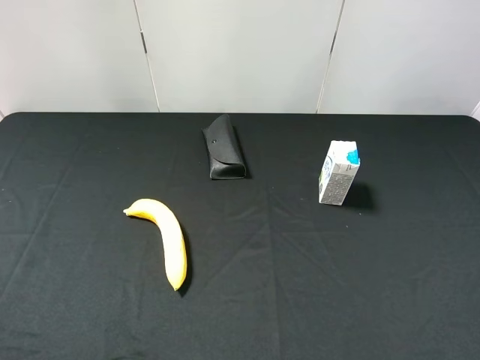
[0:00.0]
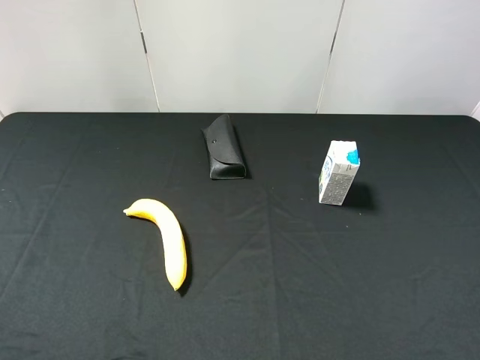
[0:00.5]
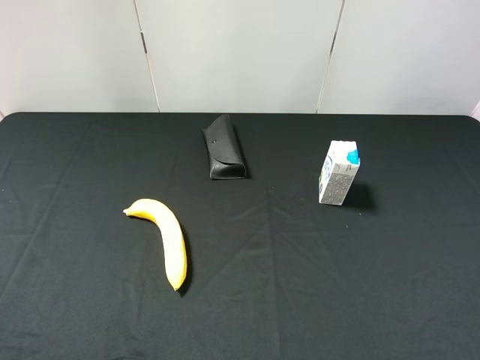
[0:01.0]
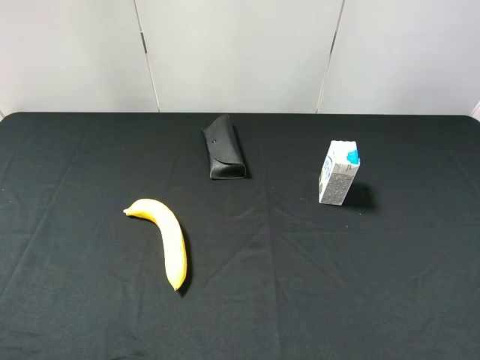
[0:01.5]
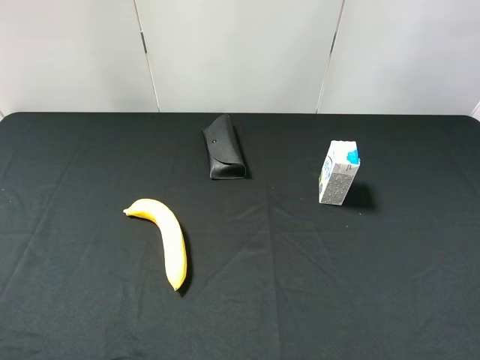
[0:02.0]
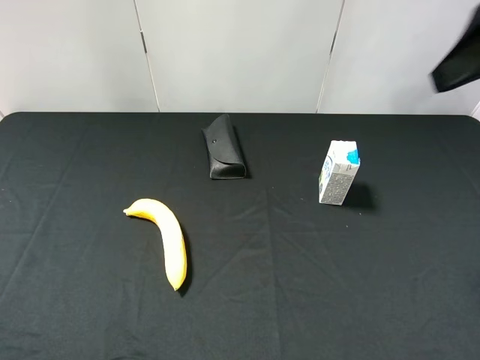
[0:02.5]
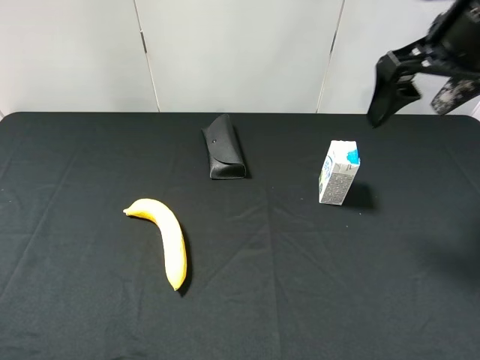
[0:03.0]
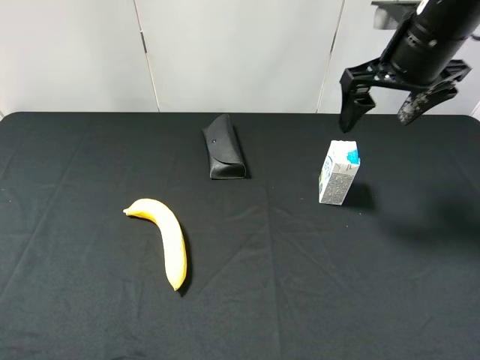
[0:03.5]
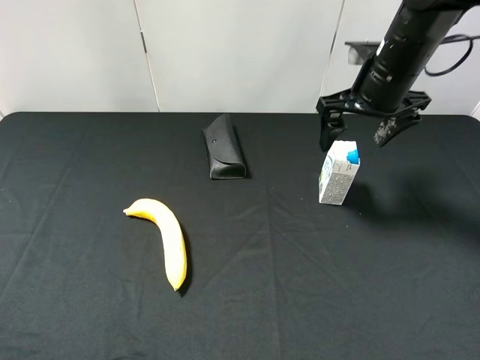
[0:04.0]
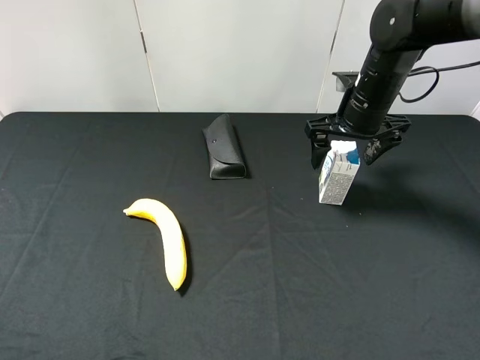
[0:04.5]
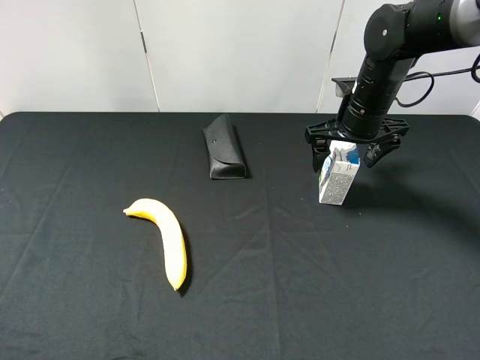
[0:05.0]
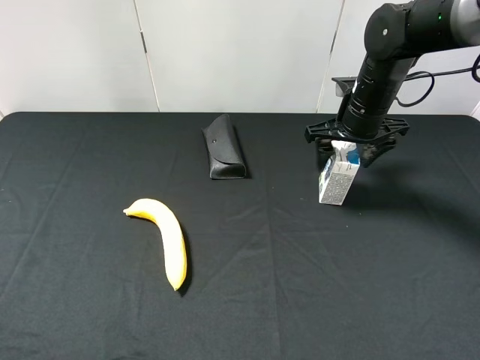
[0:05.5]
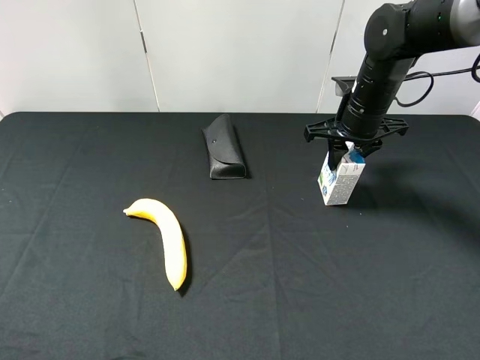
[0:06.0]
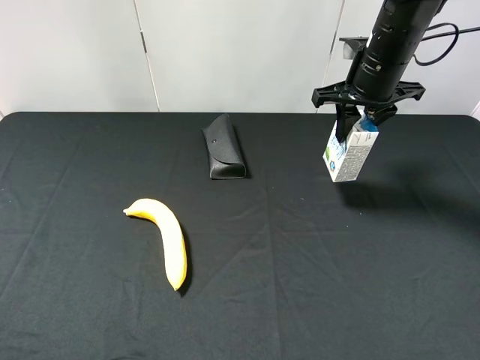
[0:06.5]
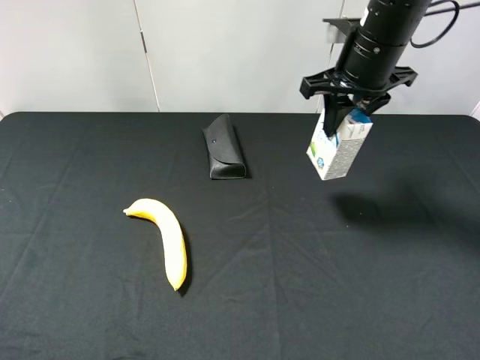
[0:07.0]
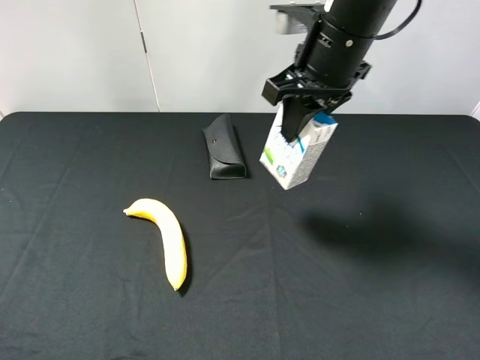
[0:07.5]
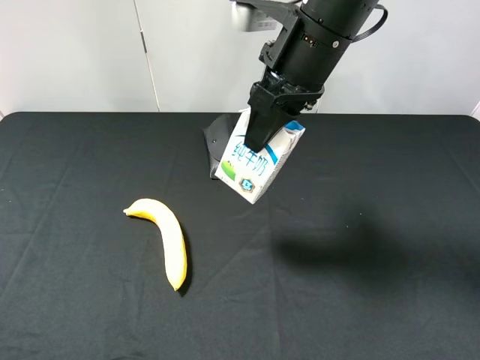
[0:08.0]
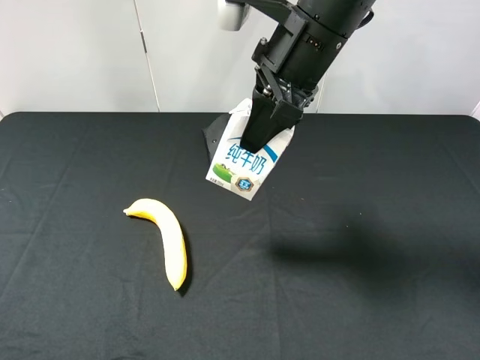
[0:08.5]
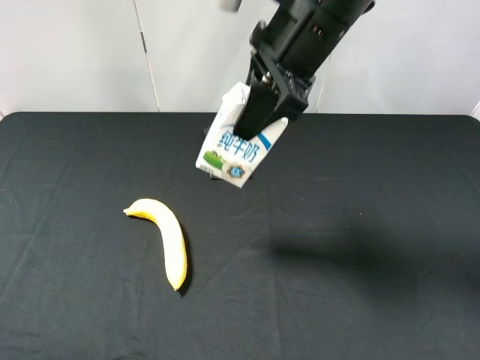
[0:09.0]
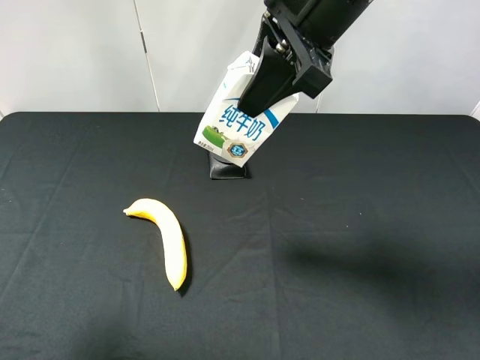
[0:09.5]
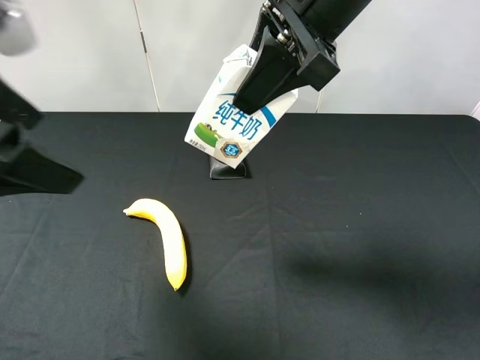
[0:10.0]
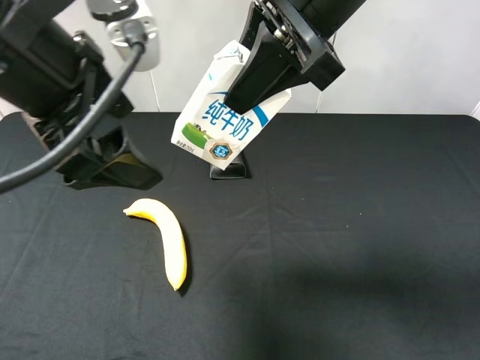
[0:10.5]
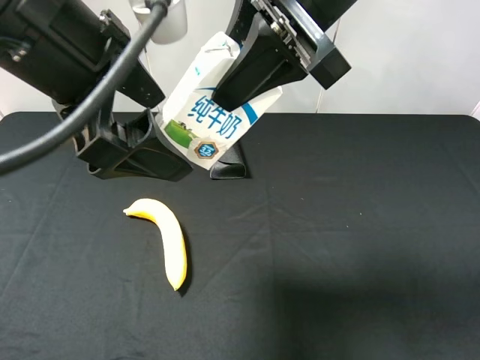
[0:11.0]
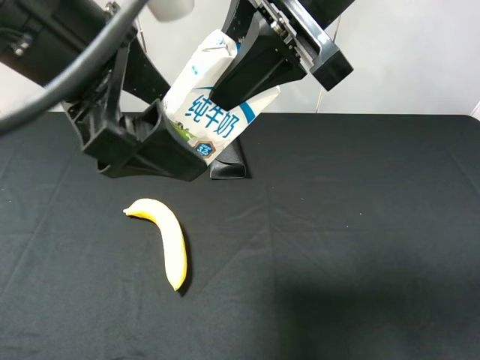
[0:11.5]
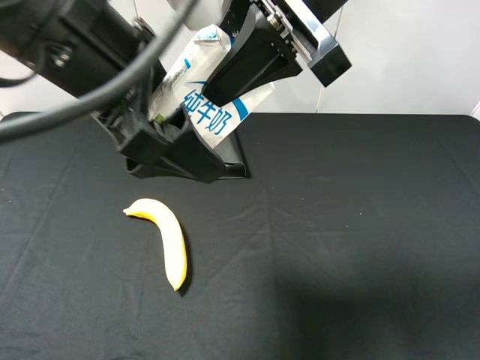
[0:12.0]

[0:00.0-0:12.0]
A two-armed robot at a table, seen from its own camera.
Task of the whole recording: use the right gripper to pick up the item and transfer it from the right gripper to the left gripper.
Step, 0:00.0 to 0:05.5: Use the right gripper to grab the milk on the right side of the table.
0:02.0 to 0:04.0: The right gripper moves forward and downward, about 30 cm.
0:04.0 to 0:06.0: The right gripper is displaced downward by approximately 5 cm, and closes.
0:06.0 to 0:08.0: The right gripper goes some 20 cm upward, to the left and backward.
0:08.0 to 0:10.0: The right gripper travels upward by approximately 5 cm. Meanwhile the left gripper is displaced forward and to the right by roughly 20 cm.
0:10.0 to 0:12.0: The left gripper is displaced to the right by some 10 cm.

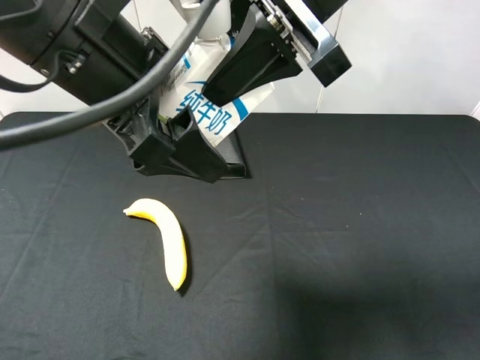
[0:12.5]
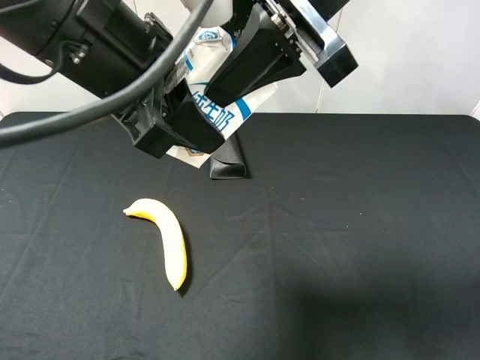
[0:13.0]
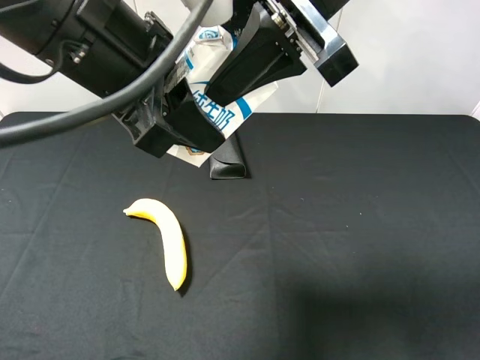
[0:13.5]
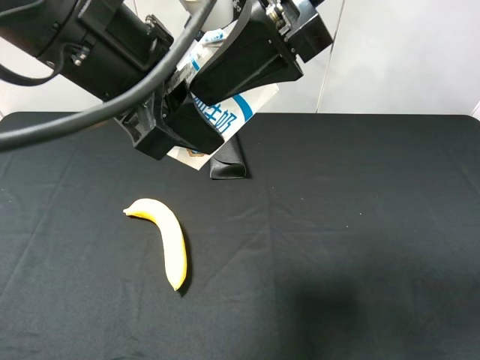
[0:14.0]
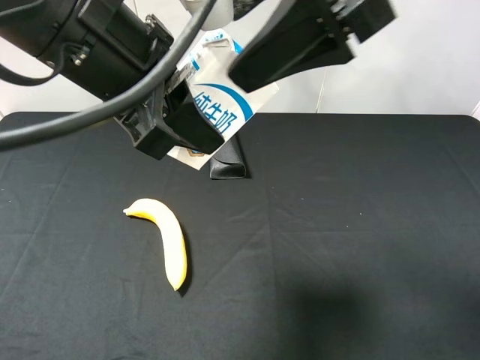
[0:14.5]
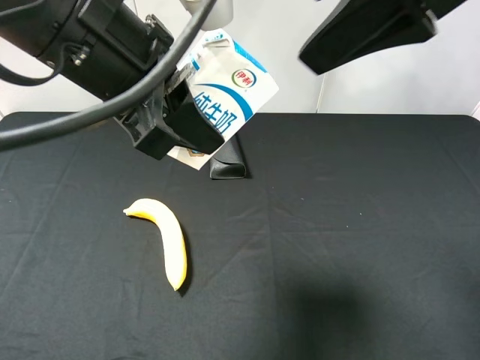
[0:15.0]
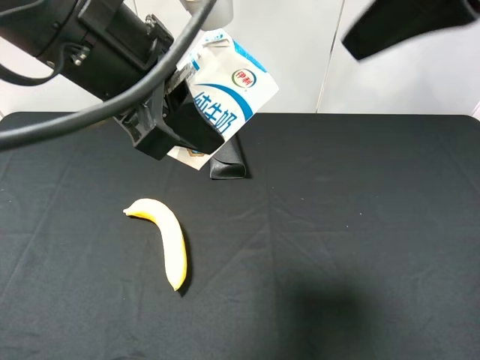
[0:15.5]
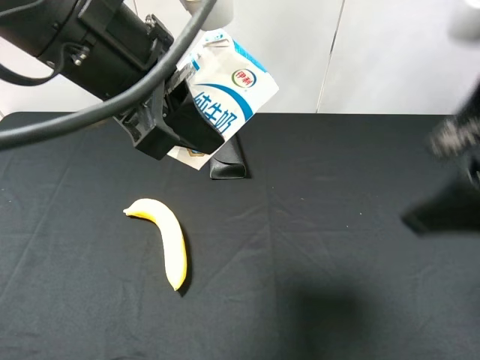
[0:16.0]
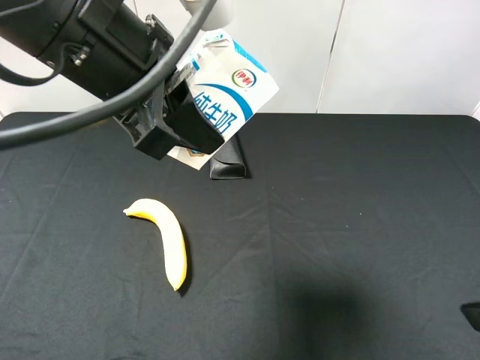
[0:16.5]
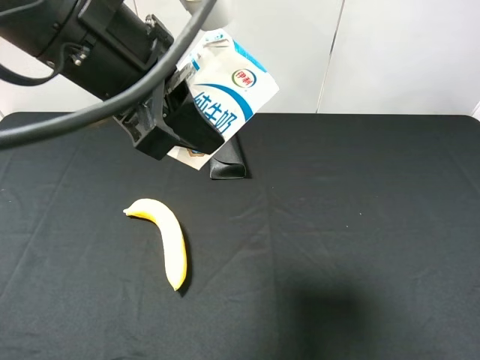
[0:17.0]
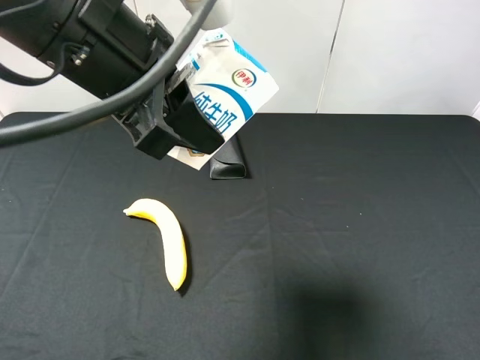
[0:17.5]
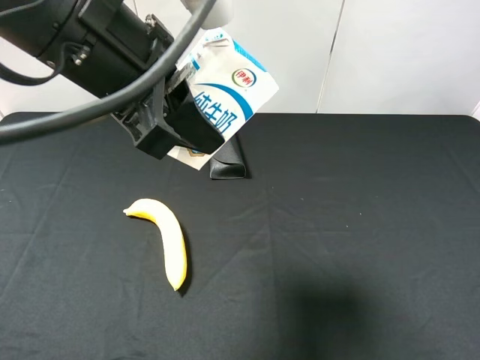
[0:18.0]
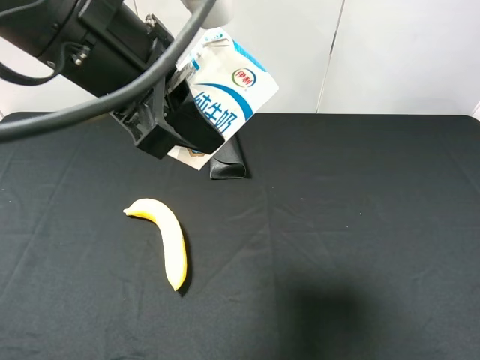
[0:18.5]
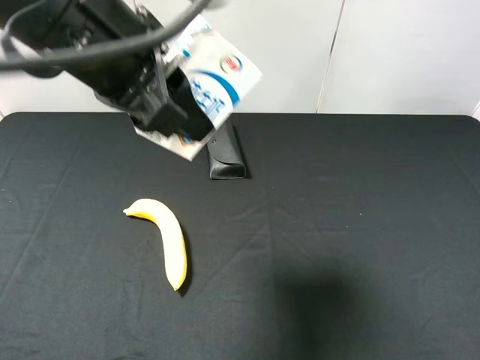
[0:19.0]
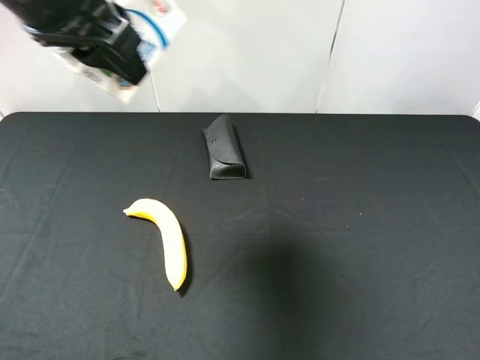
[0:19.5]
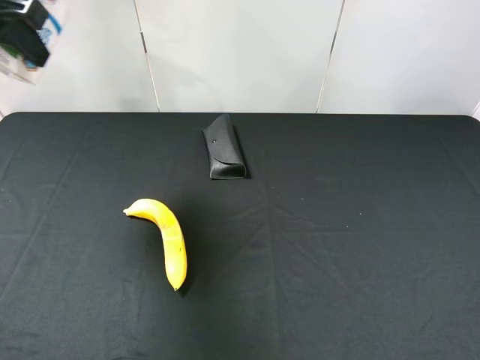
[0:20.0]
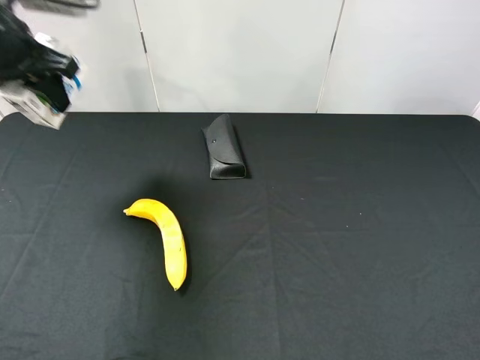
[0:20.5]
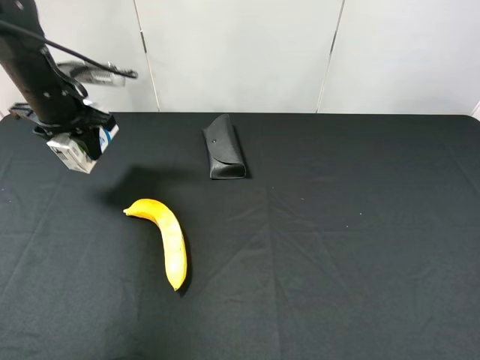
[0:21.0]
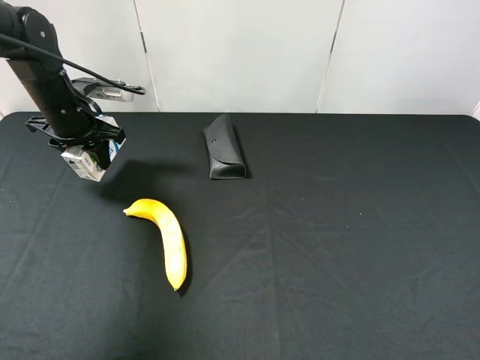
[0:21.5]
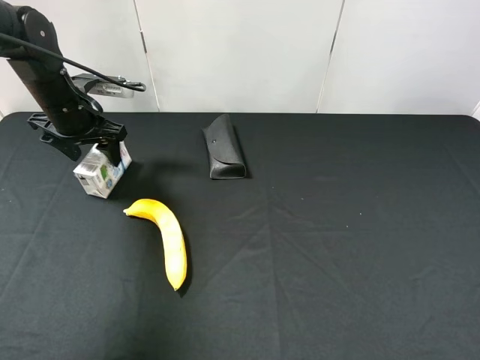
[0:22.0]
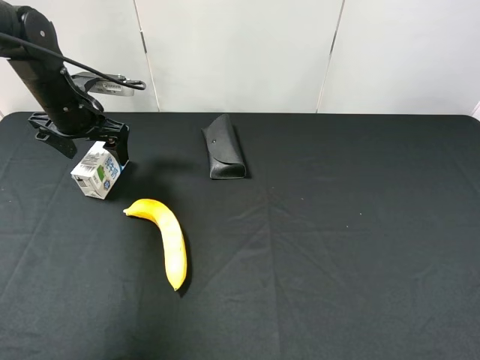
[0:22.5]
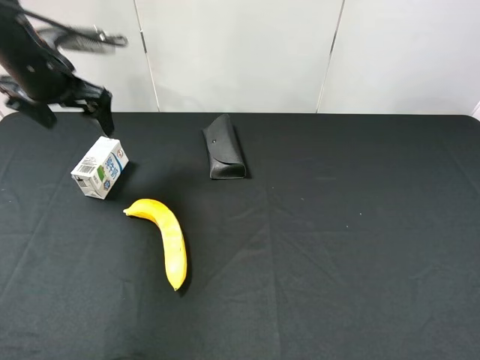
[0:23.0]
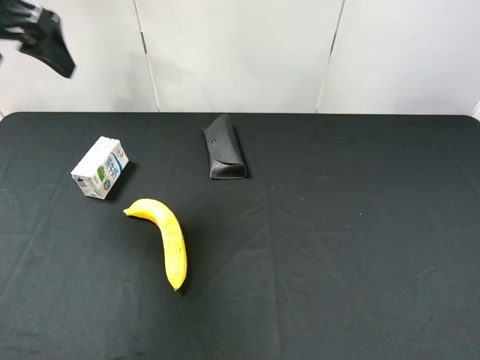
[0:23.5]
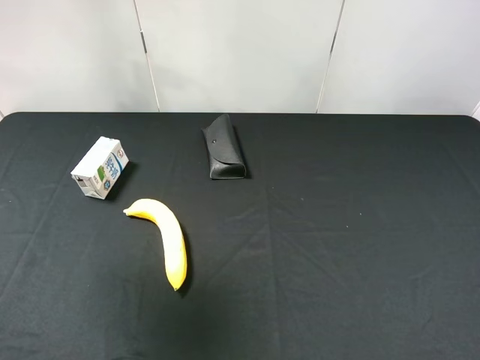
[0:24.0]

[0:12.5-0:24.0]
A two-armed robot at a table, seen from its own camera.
Task of the whole recording: use the right gripper to pick up the item and transfer it from the right gripper to the left gripper.
Step, 0:14.5 to 0:22.0: The left gripper places milk on the left side of the table.
0:12.5 to 0:14.5: The left gripper closes; the right gripper opens.
0:14.5 to 0:16.5: The right gripper moves backward, to the right and downward, roughly 30 cm.
0:16.5 to 0:18.5: The right gripper shifts by roughly 5 cm.
0:18.5 to 0:20.0: The left gripper goes roughly 15 cm to the left and forward.
0:20.0 to 0:22.0: The left gripper heads downward and forward, covering about 25 cm, and opens.
0:22.0 to 0:24.0: The left gripper shifts about 30 cm upward and backward.
